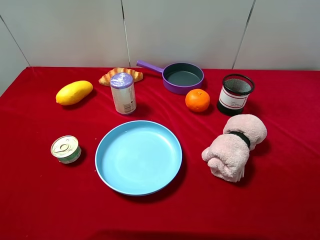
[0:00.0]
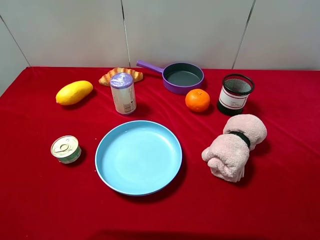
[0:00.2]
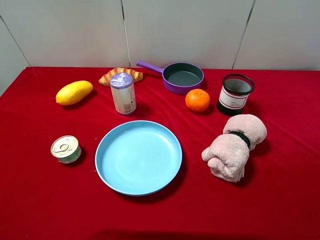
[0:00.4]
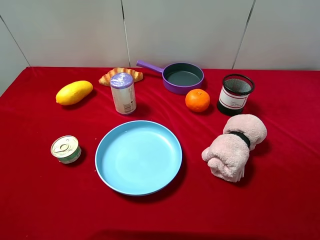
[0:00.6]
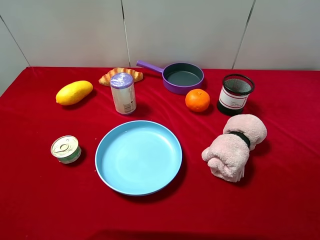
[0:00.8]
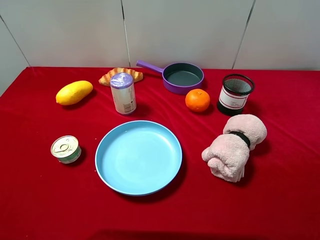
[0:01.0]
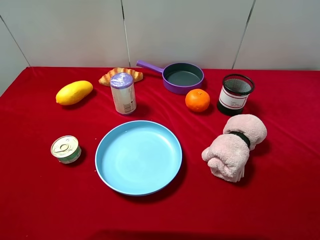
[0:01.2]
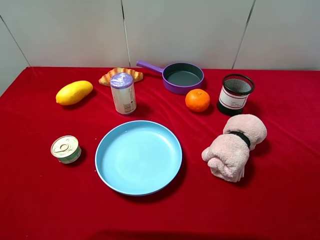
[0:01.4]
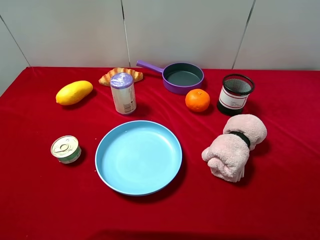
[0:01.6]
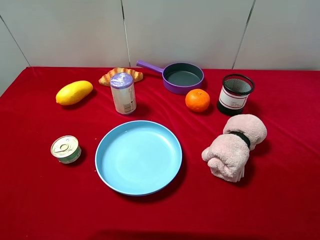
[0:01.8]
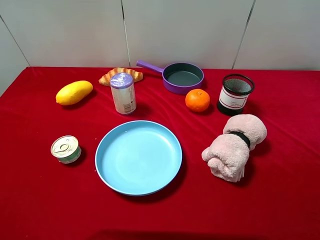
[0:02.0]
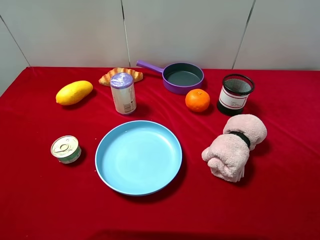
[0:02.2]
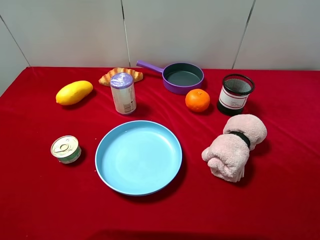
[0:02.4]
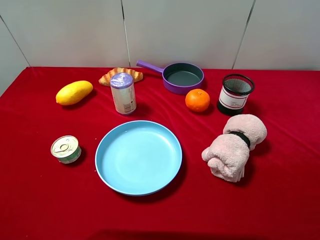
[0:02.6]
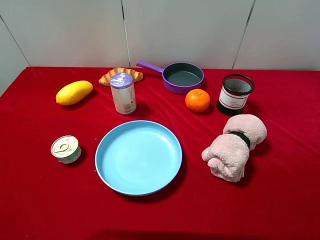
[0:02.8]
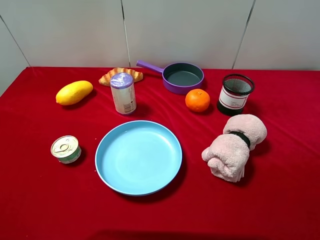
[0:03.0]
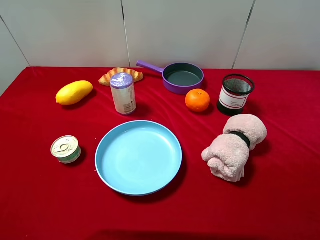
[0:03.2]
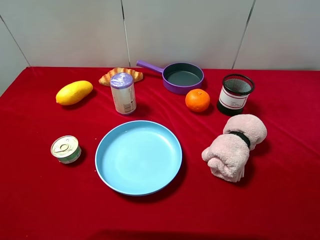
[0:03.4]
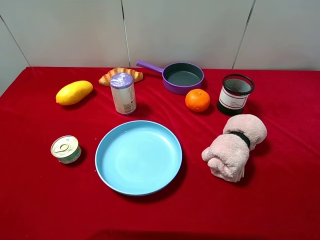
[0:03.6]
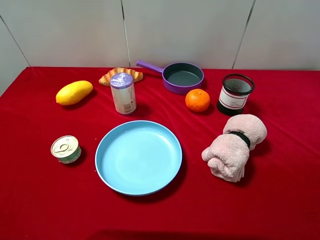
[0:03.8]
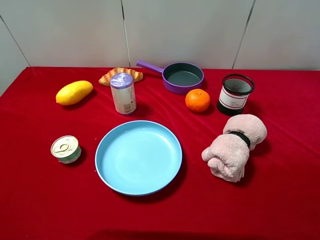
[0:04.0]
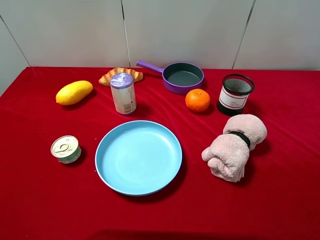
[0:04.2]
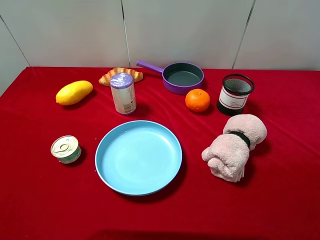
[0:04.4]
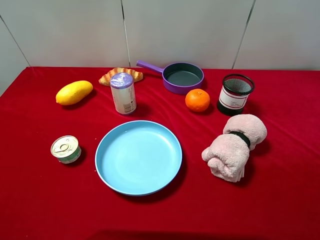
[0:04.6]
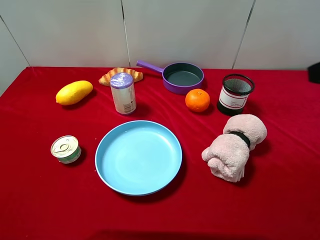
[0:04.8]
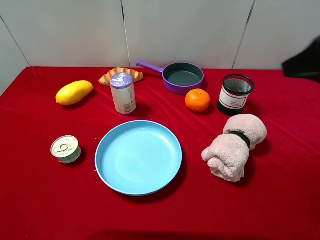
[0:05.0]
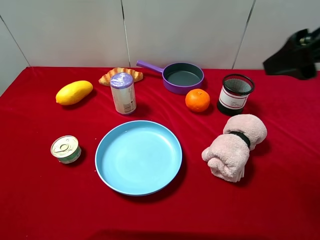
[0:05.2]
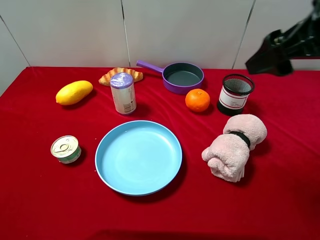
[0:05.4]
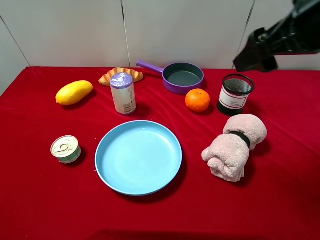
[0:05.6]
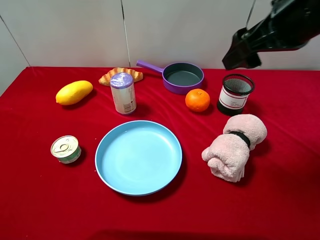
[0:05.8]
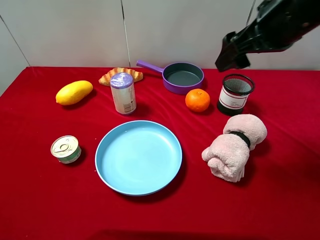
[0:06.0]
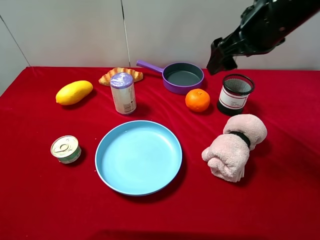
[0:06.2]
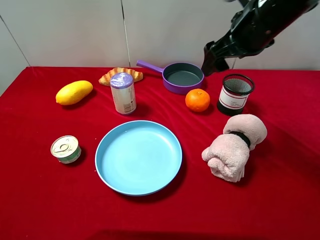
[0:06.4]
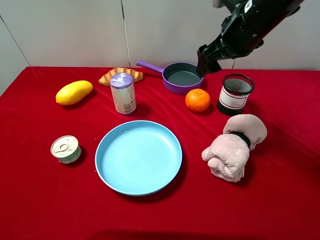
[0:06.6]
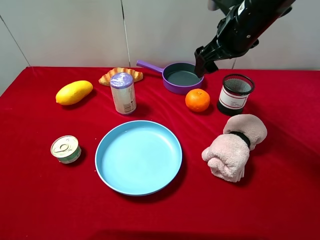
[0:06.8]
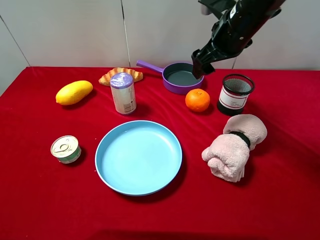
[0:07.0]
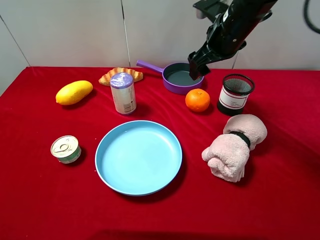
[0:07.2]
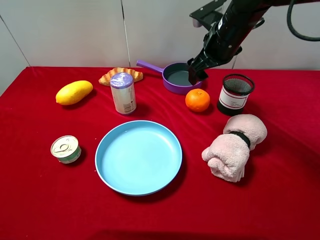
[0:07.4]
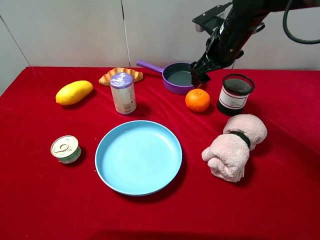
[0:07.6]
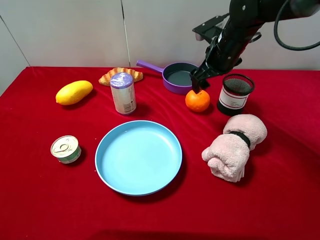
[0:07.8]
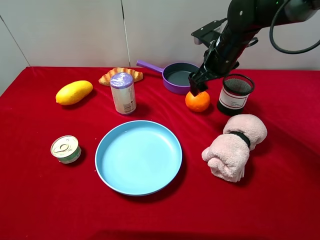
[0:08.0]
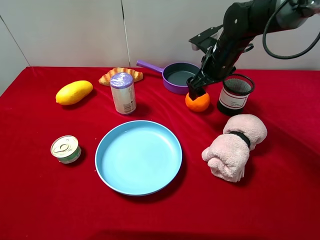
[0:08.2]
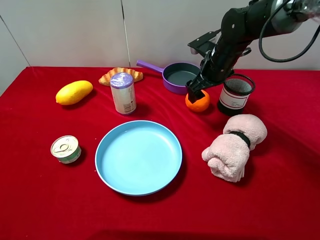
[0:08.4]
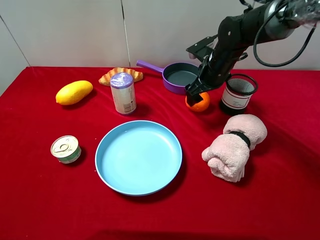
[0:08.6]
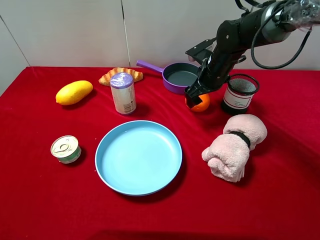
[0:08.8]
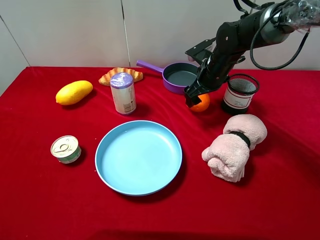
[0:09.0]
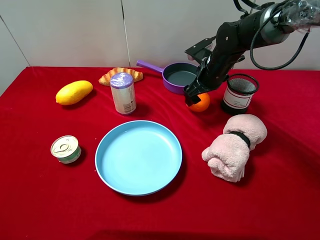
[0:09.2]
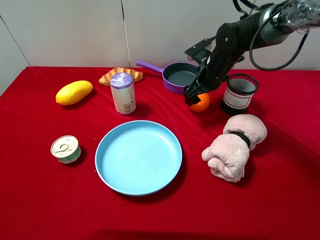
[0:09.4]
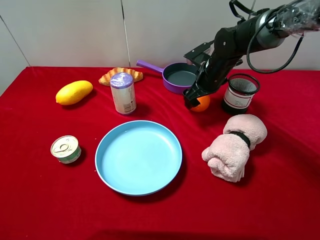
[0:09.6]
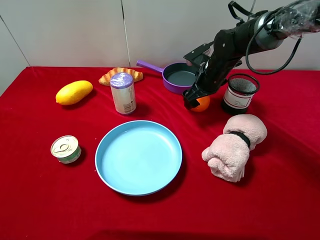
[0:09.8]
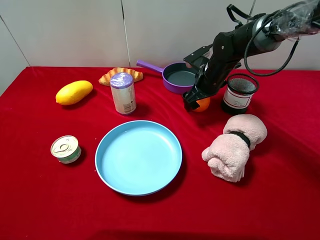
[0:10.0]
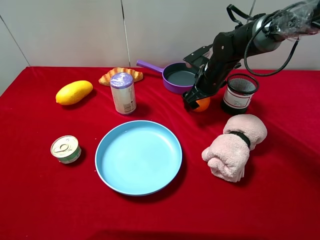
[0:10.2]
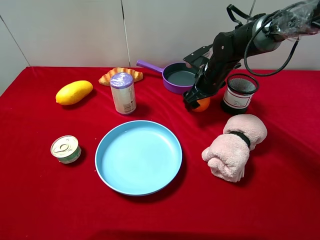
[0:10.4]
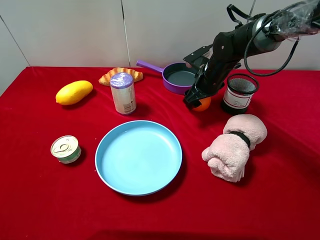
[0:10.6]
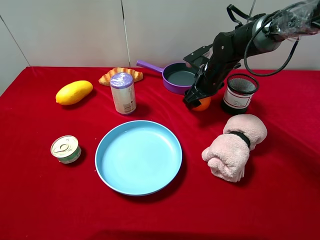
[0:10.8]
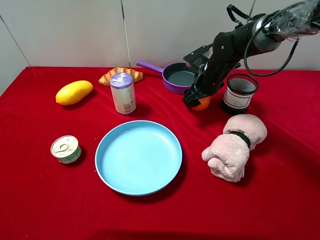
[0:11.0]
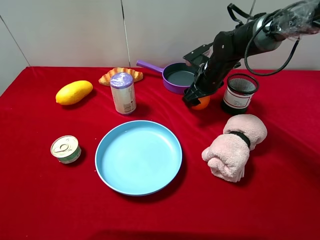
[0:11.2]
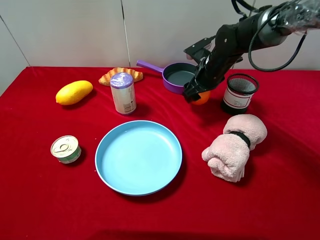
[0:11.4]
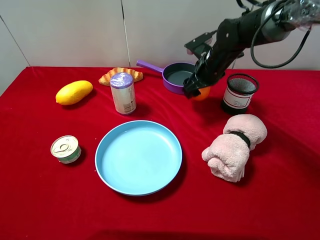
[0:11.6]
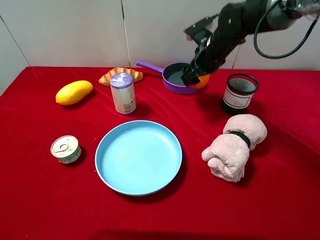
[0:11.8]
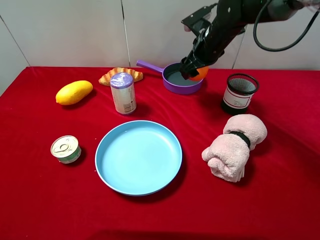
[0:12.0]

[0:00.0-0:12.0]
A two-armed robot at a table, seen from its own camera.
Task of the whole recording: pick up an item with a gripper and place it in a random container on the desktop.
0:00.0 to 0:03.0: Both grippers stay about where they are.
0:04.4 to 0:06.0: The right gripper heads forward and to the left, covering some 20 cm.
0:06.0 to 0:07.6: The right gripper heads forward and downward, covering some 15 cm.
0:07.6 to 0:09.0: The right gripper goes about 10 cm downward.
0:09.0 to 0:10.4: The right gripper closes up.
0:10.4 to 0:12.0: The right gripper is displaced upward by some 10 cm.

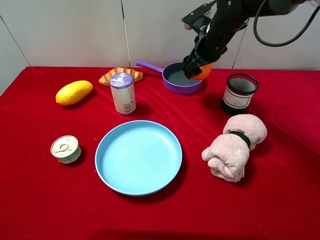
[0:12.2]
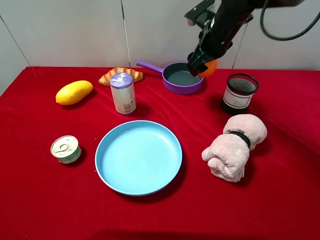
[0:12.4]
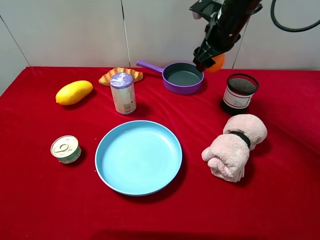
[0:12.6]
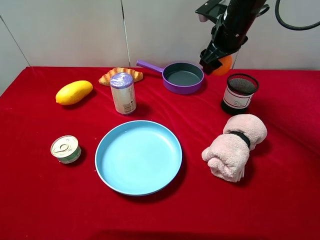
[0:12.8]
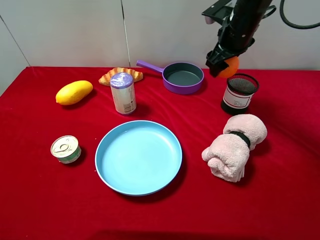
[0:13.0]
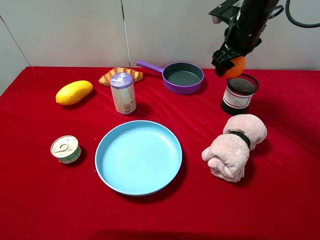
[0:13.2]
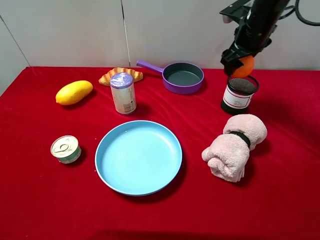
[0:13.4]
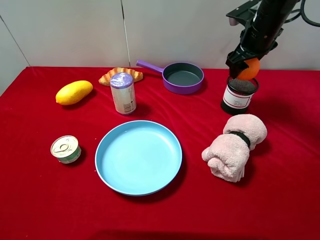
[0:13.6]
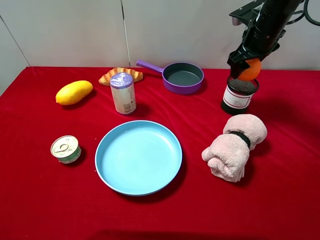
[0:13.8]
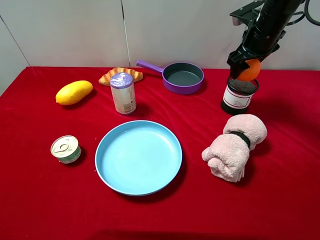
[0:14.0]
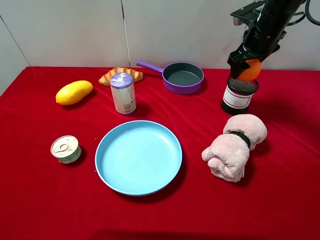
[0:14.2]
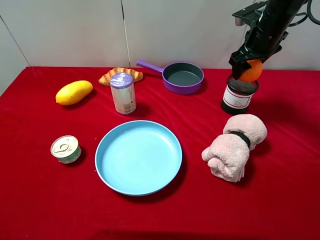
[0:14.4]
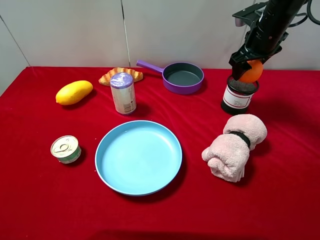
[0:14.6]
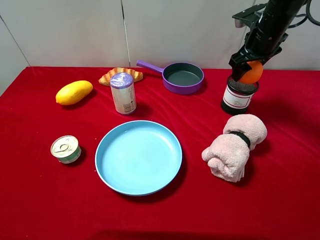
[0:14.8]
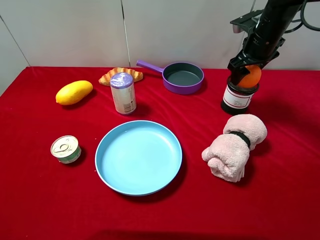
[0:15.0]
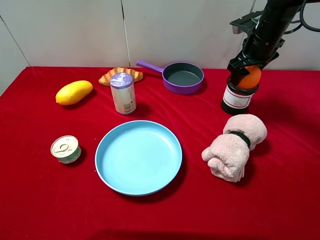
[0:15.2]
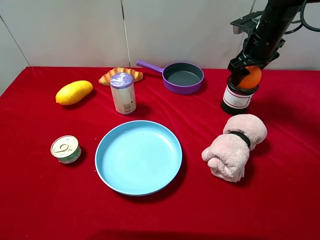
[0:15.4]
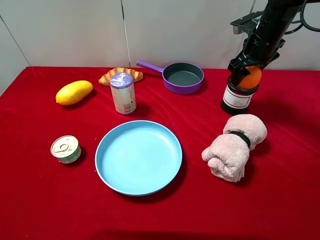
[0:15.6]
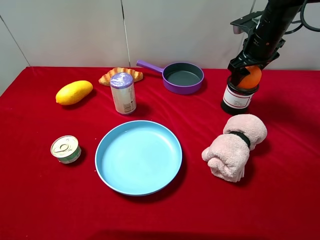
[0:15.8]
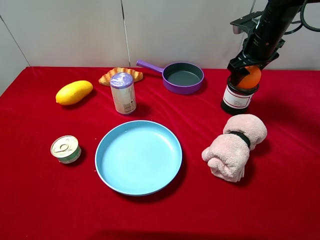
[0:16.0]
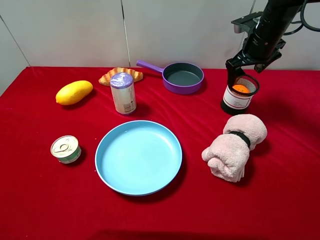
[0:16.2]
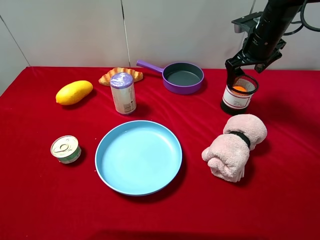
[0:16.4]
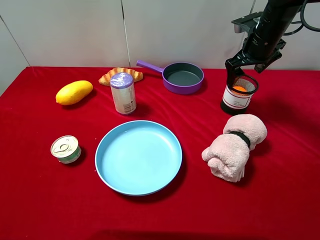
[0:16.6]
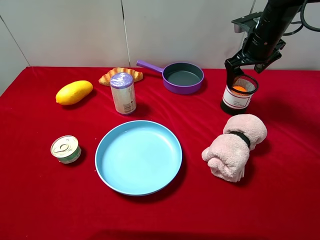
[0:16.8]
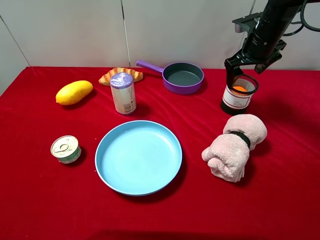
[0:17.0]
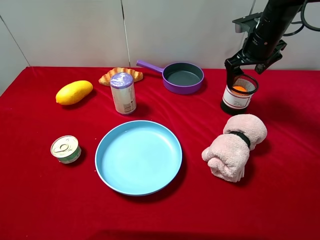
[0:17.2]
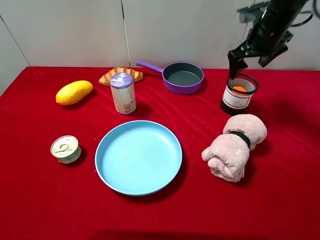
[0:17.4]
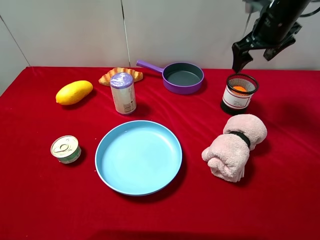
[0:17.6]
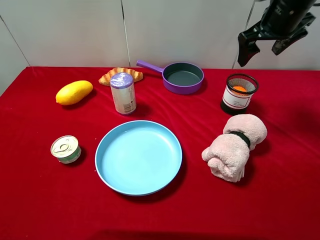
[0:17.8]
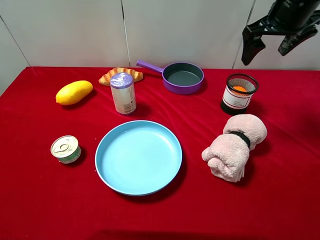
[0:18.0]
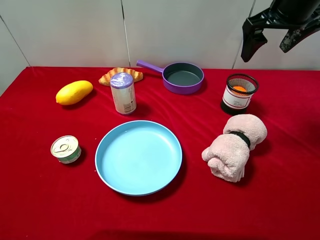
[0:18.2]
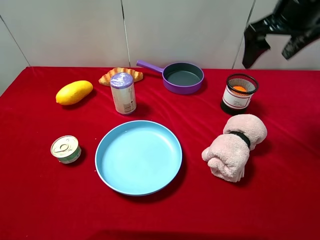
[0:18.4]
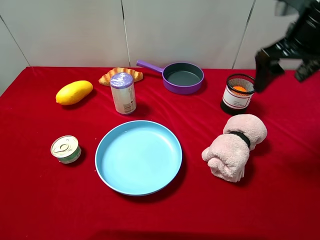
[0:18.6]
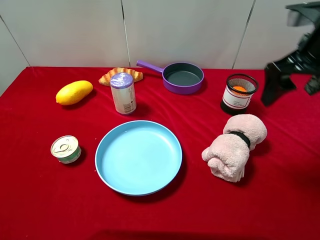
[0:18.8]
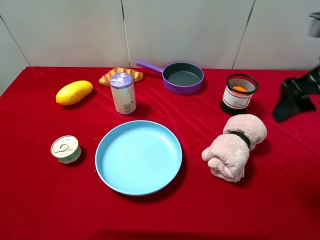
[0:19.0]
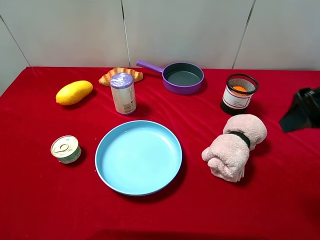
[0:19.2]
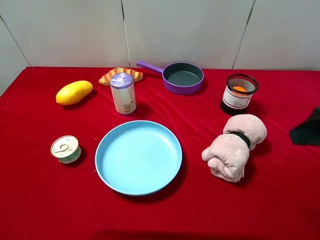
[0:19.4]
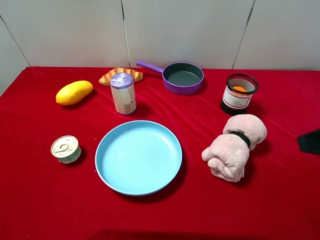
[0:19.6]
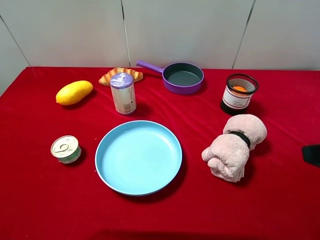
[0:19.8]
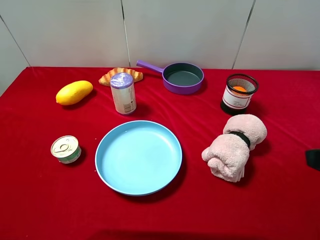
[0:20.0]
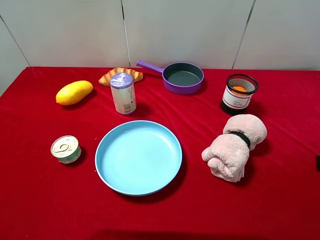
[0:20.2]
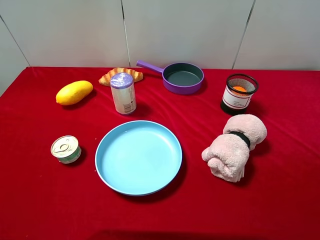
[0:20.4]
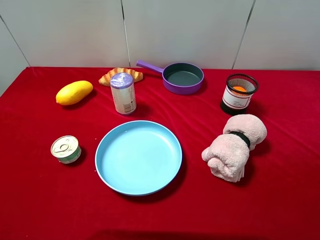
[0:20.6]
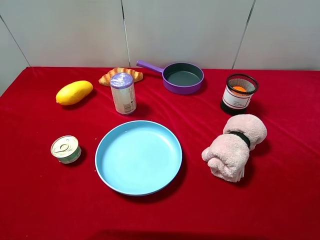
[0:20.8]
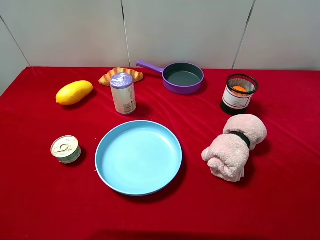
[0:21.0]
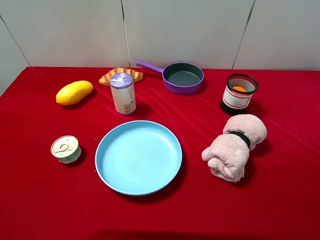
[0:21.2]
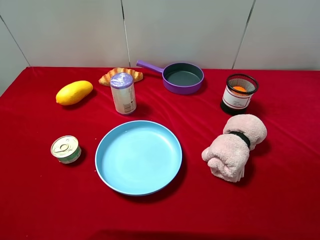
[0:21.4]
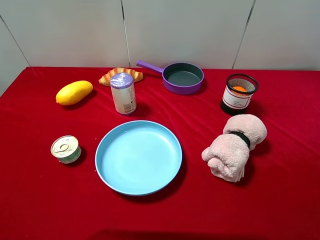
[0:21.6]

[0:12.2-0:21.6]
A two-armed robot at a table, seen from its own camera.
Task of the whole recording: pick up an item with a gripper and place it in a random container on the desktop.
0:12.2 to 0:13.8: The right gripper goes roughly 10 cm to the right.
0:13.8 to 0:15.4: The grippers make only small movements.
0:15.4 to 0:17.0: The right gripper opens its fingers.
0:17.0 to 0:18.4: The right gripper is displaced upward and backward by roughly 15 cm.
0:18.4 to 0:20.0: The right gripper goes roughly 25 cm backward.

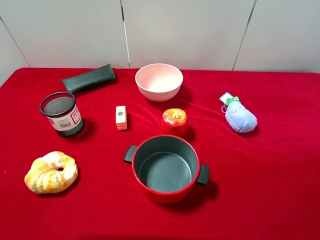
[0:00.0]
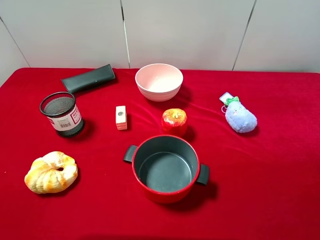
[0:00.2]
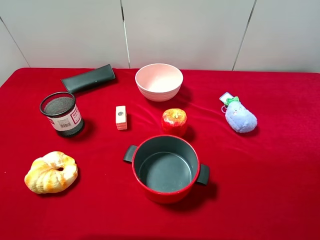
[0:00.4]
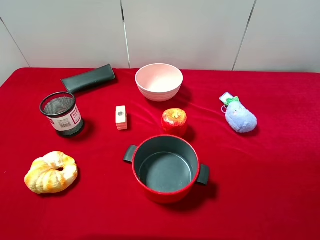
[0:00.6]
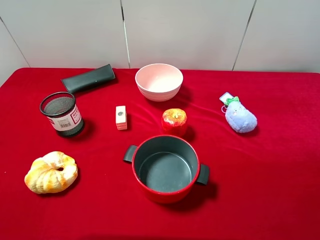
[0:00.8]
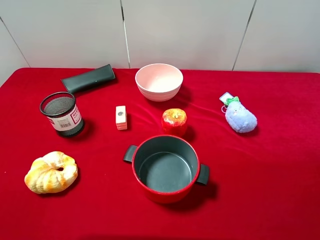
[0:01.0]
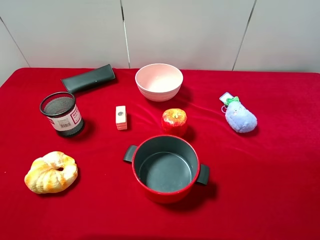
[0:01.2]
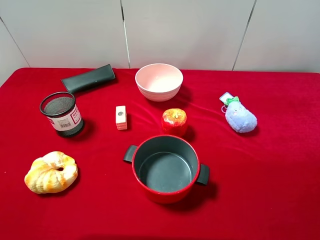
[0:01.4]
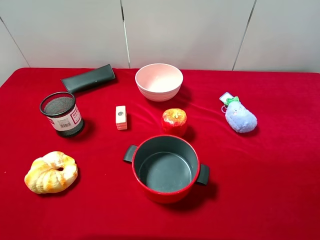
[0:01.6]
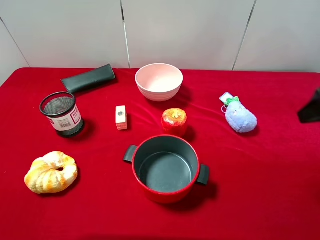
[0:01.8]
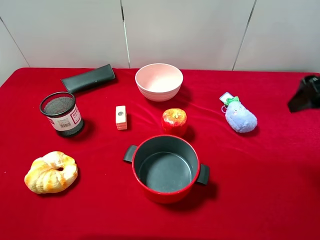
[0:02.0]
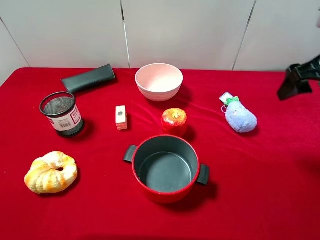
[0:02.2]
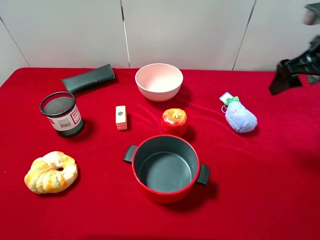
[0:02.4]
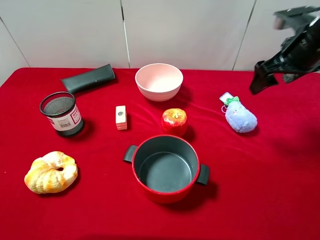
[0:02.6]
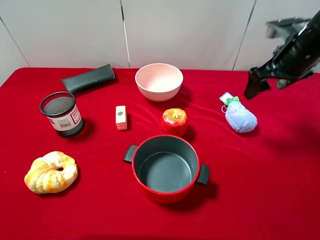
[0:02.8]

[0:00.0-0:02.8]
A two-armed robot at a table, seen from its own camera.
Task of the whole recording: pick up an item with a gripper and place it in a random container on the desktop.
0:01.4 to 0:02.8: The right gripper is displaced forward by some 25 cm.
